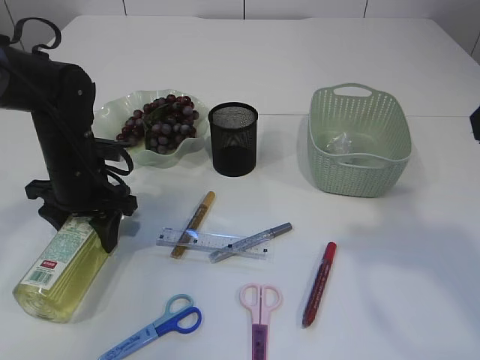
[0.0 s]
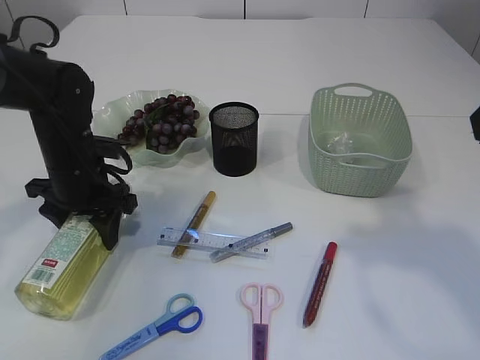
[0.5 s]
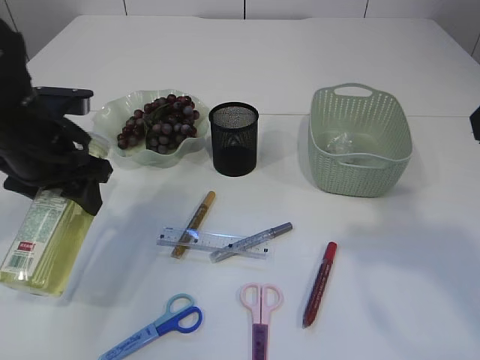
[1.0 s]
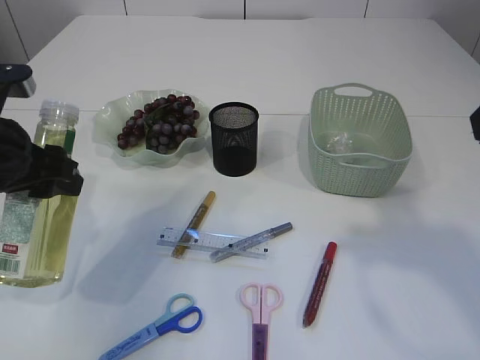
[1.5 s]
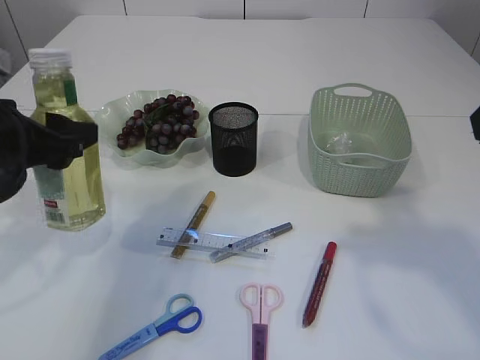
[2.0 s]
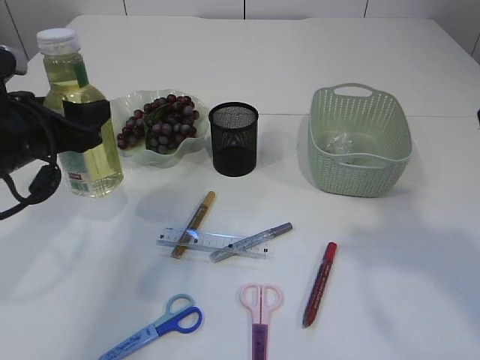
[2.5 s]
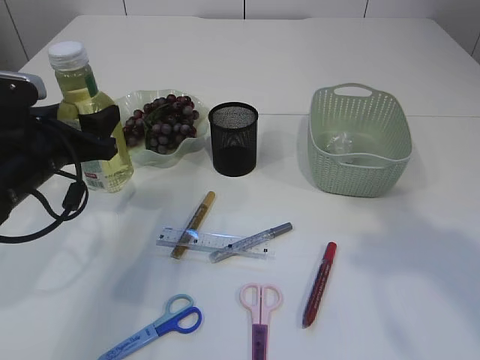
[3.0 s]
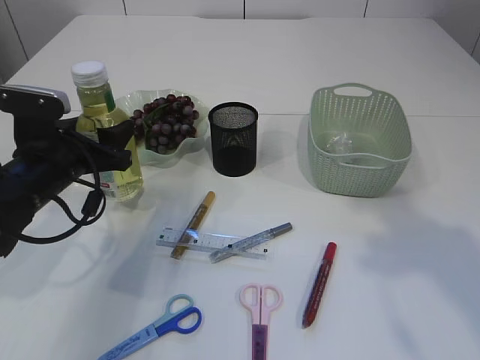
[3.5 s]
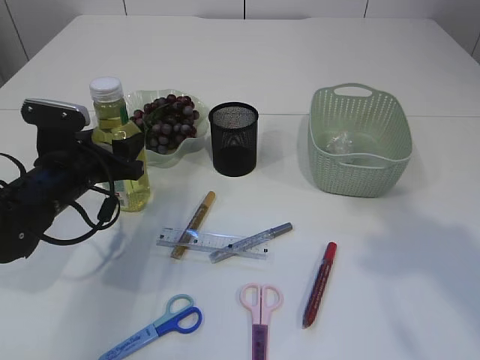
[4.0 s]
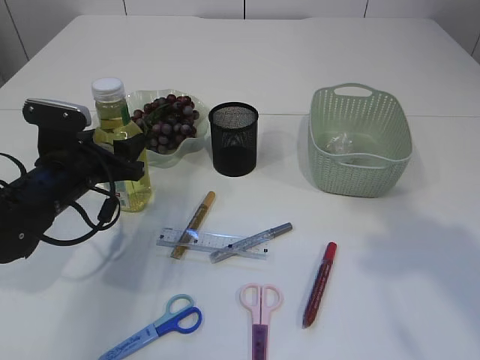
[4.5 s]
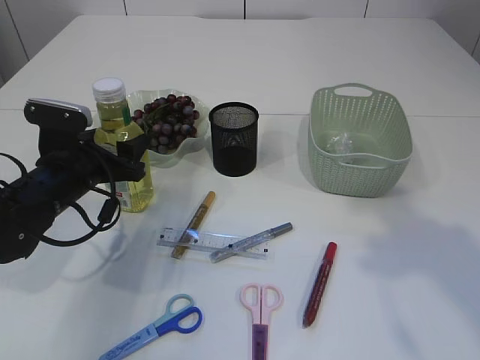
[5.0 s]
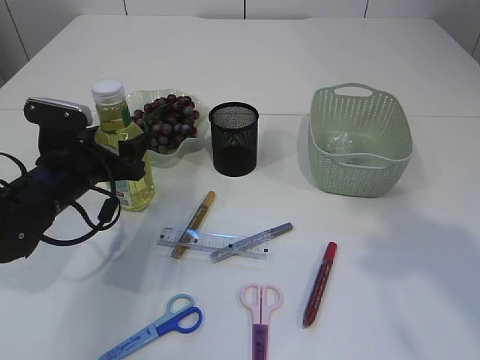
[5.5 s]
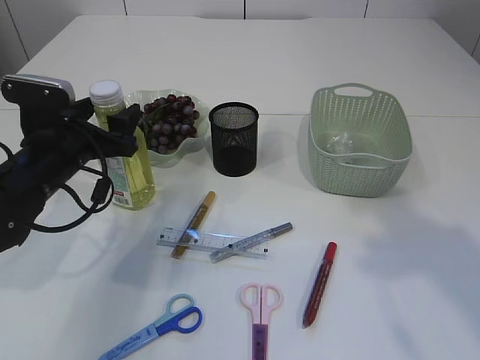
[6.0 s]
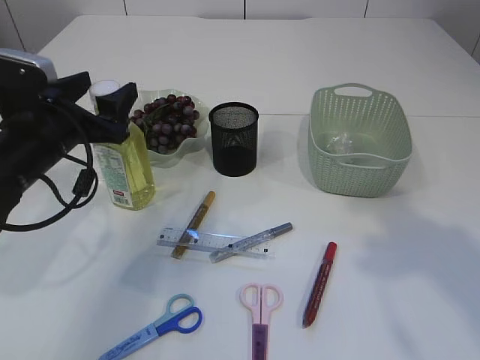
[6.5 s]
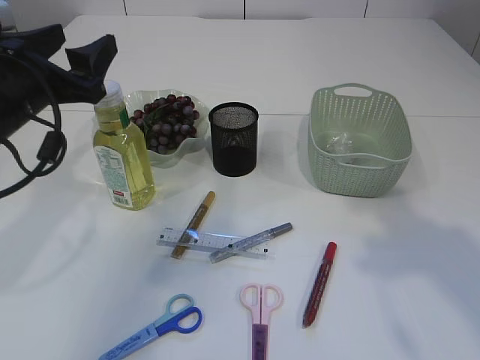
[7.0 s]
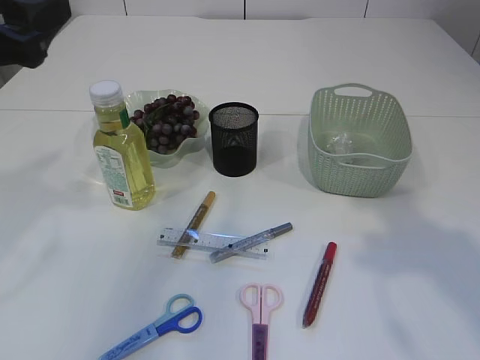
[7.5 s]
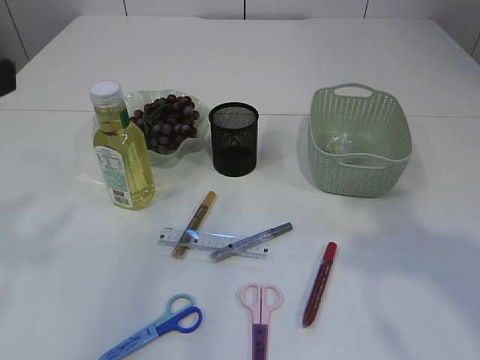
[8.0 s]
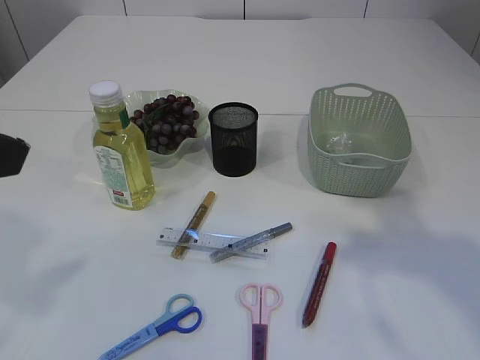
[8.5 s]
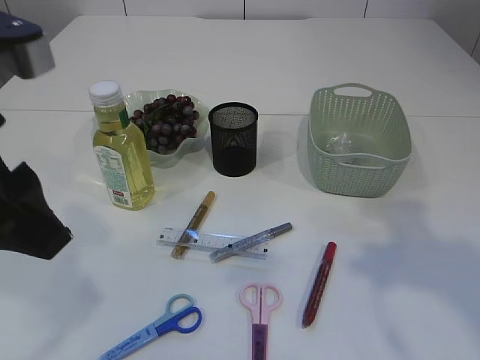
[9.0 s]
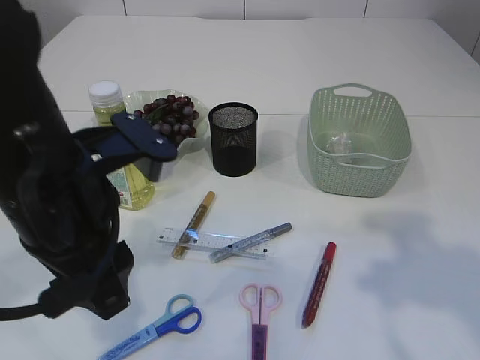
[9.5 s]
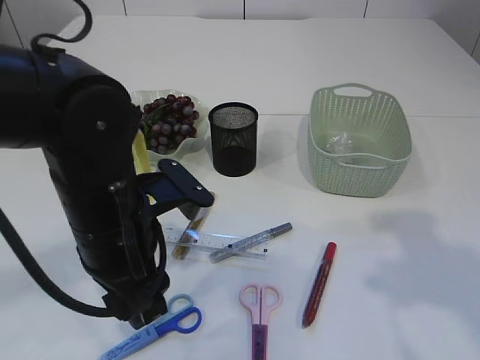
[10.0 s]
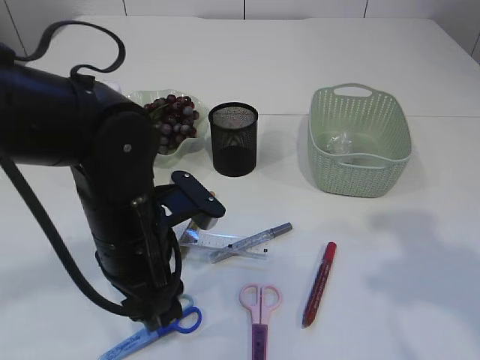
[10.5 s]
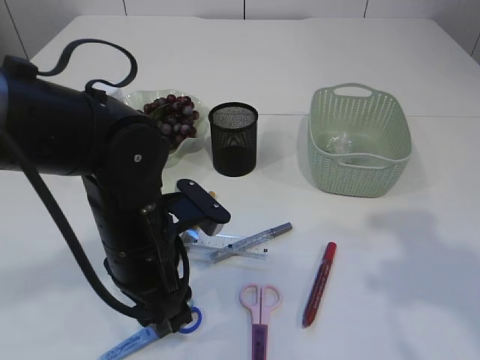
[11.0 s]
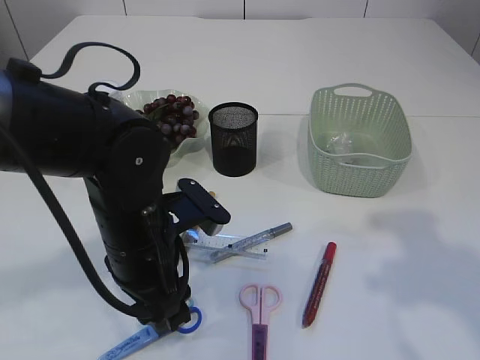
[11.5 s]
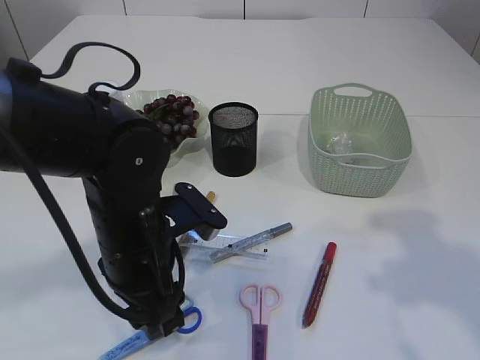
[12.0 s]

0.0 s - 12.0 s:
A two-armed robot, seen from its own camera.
Step, 1.5 s - 6.5 s: Place the bottle.
0.0 s - 2.0 s: The left gripper shifts roughly 15 cm backward and upward.
2.0 s - 4.0 s: The left gripper is displaced downward and forward by approximately 15 cm.
4.0 s - 6.0 s: The grippers move only a little.
6.0 s - 8.0 s: The left gripper travels upward and backward by about 25 cm.
8.0 s - 10.0 s: The left gripper shifts about 20 cm to the right and downward; the right gripper goes about 5 cm downward.
10.0 s - 12.0 s: The grippers make only small movements.

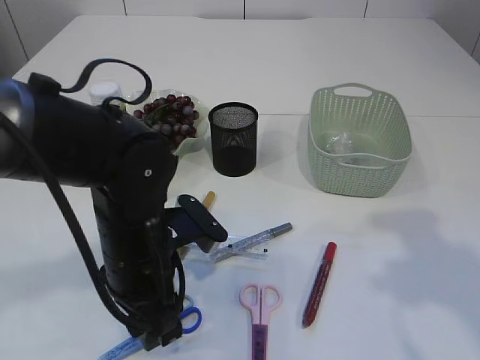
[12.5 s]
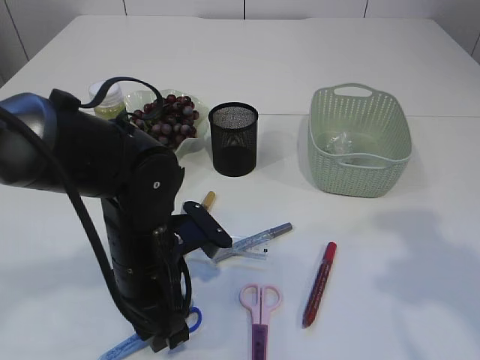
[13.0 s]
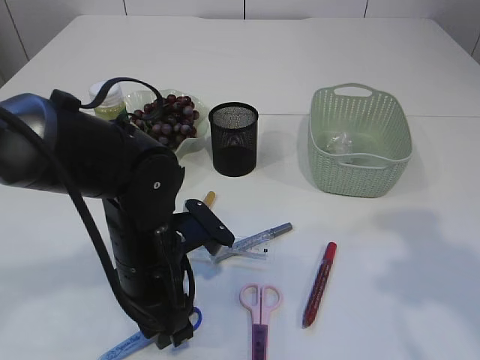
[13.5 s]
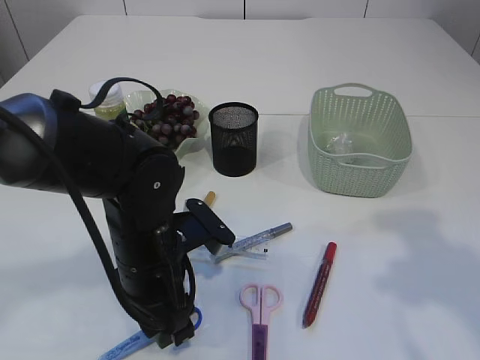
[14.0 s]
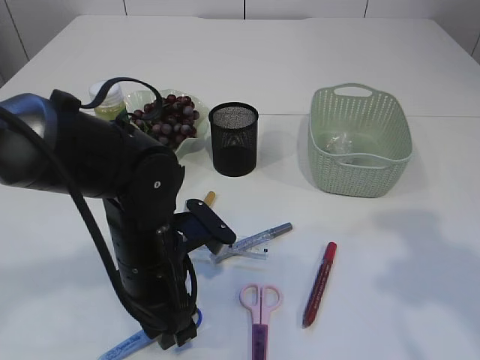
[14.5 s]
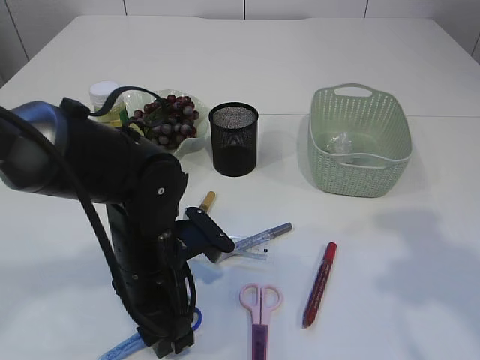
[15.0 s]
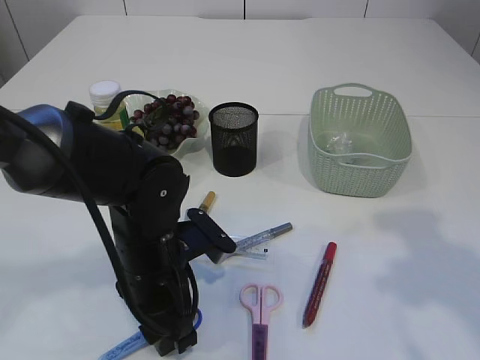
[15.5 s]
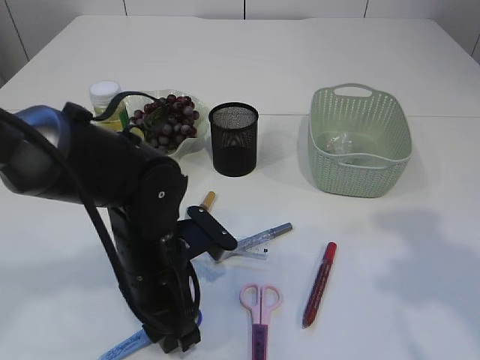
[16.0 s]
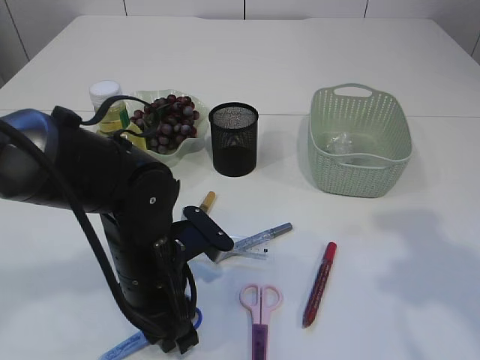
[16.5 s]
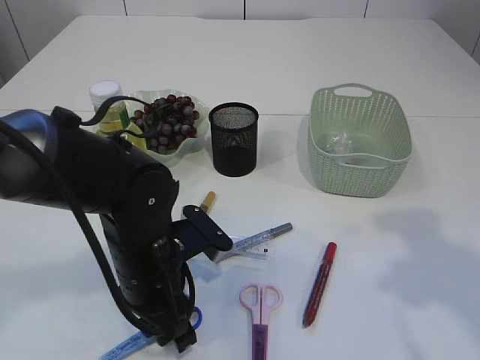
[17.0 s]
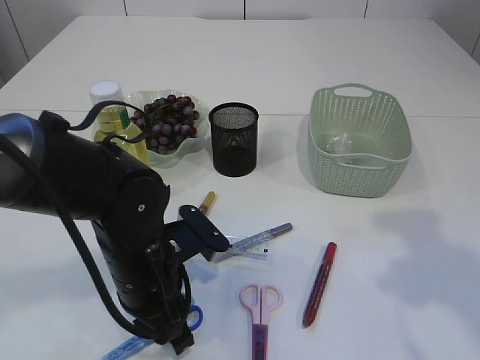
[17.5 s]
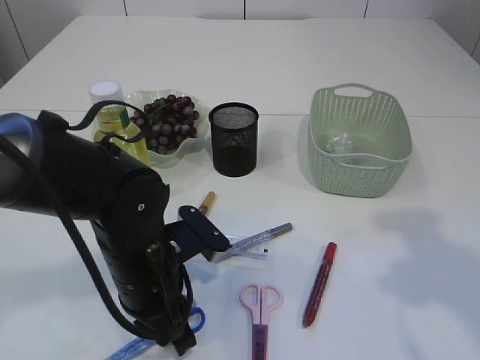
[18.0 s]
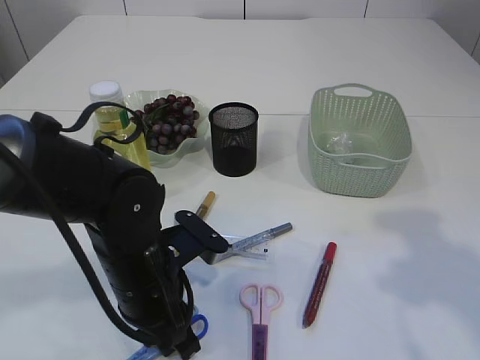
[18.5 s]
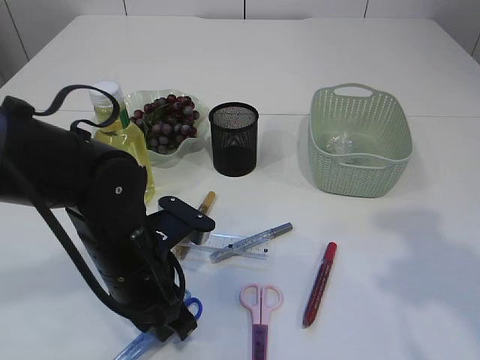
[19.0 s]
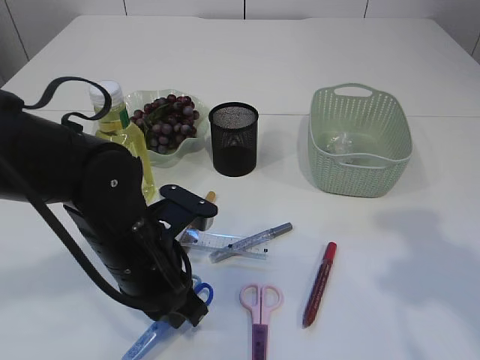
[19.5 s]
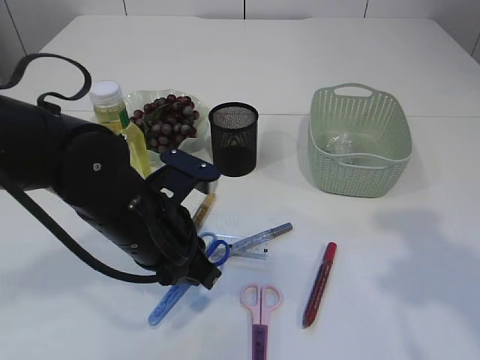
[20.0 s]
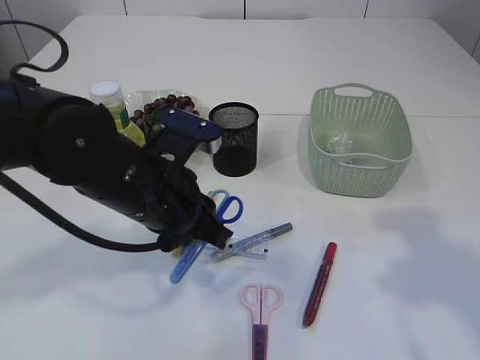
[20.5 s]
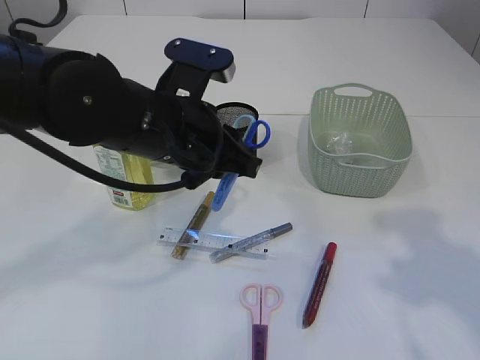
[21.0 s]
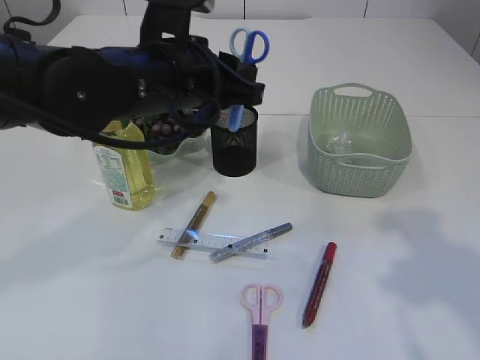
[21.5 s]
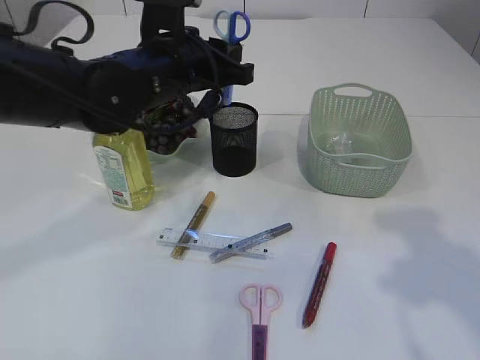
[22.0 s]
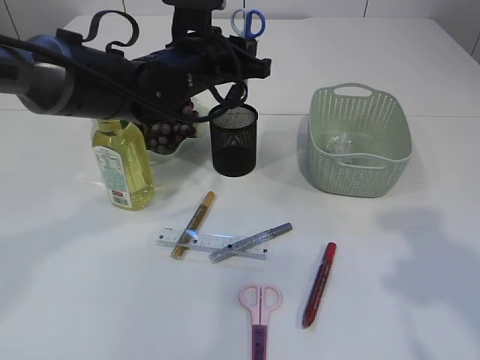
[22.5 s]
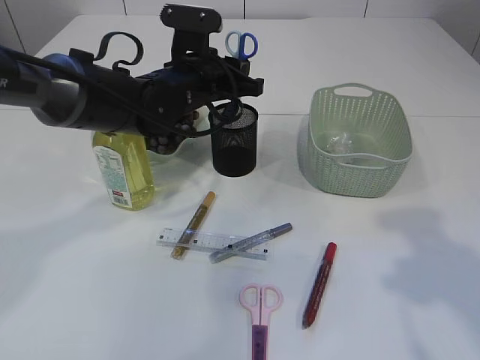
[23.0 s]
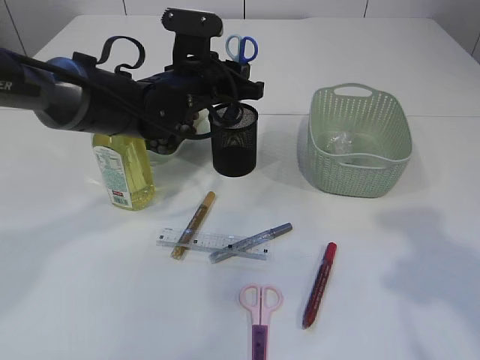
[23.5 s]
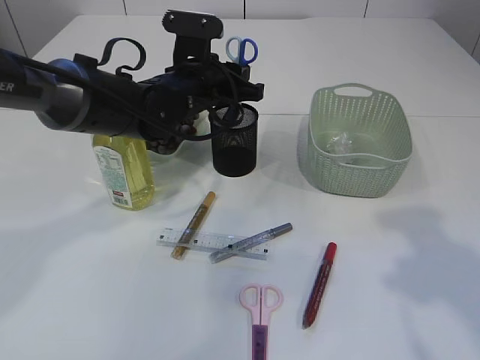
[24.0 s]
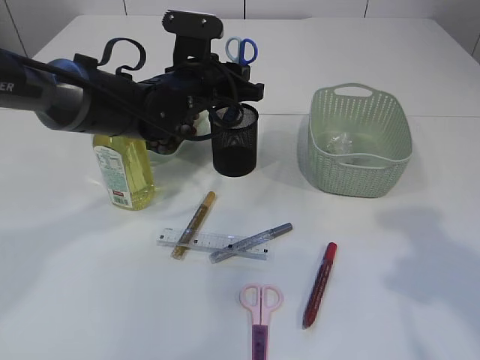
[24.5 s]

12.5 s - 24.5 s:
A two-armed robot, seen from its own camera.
Step, 12.5 s - 19.5 s: pick up the blue scissors.
12.5 s - 16.5 s: The grippers stay close to where they were, moving slightly.
16.5 s - 18.5 s: The left gripper closes.
18.5 s - 20.5 s: The left gripper travels upward by roughly 10 cm.
20.5 s - 22.5 s: The left gripper goes approximately 15 cm forward.
22.5 s - 24.5 s: The grippers stay close to where they were, moving slightly.

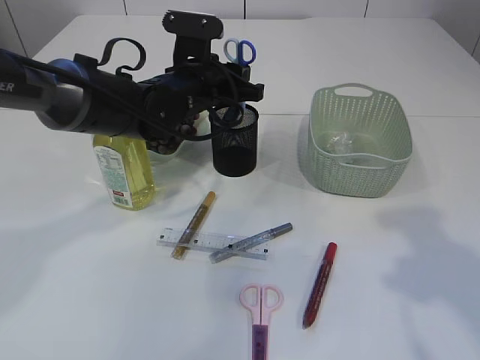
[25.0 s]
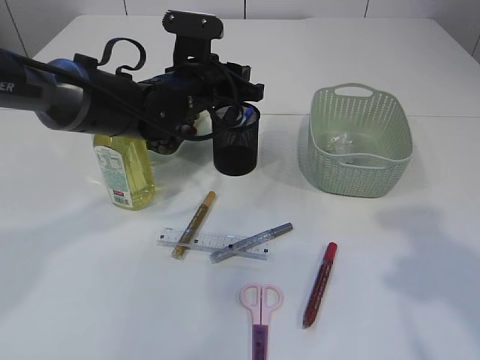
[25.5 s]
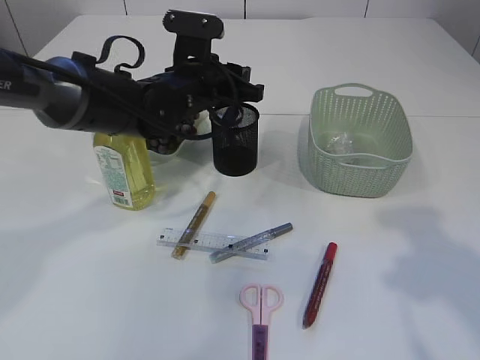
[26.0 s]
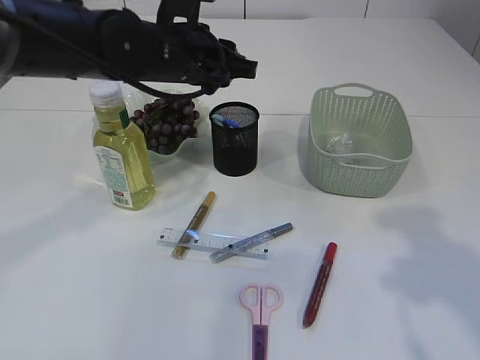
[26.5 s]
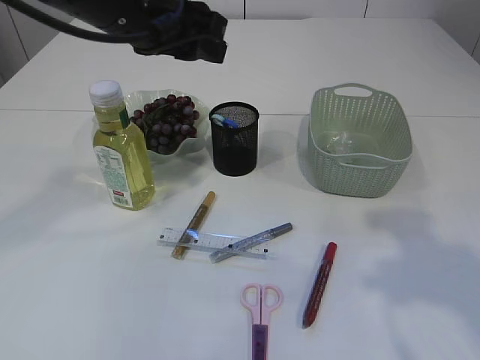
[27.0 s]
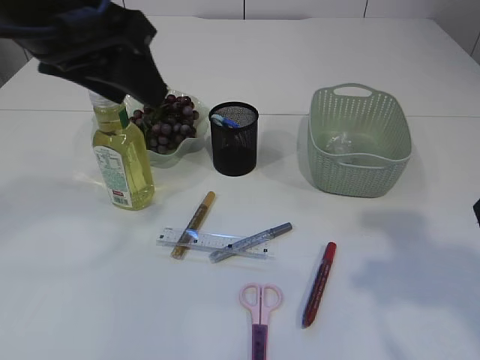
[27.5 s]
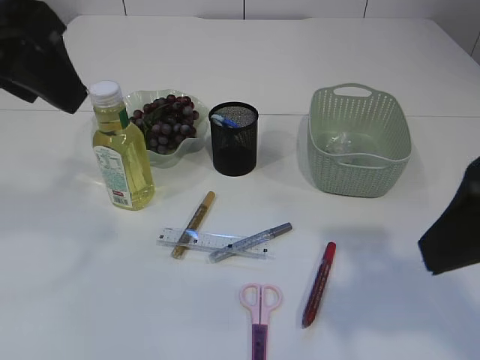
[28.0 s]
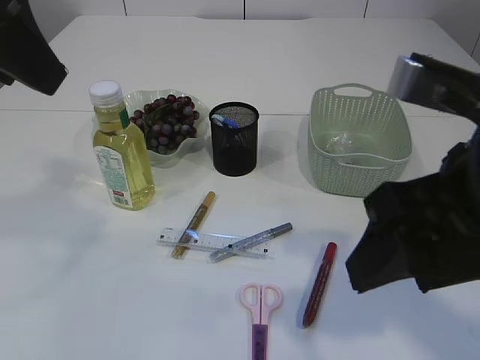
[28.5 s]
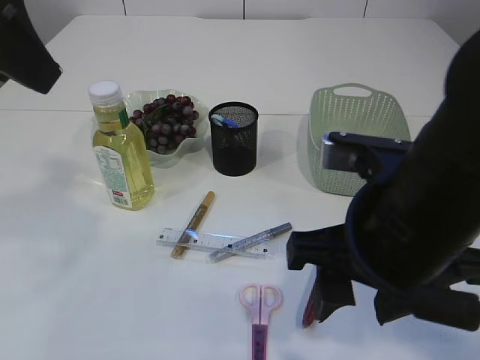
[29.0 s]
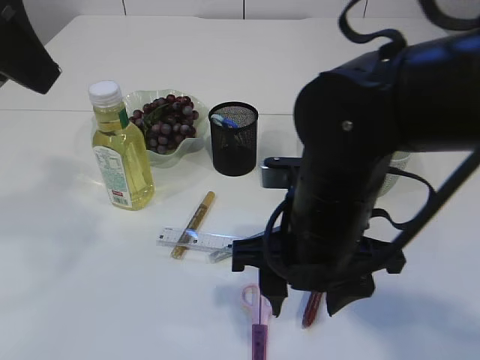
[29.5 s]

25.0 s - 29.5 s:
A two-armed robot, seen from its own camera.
25.0 s - 27.0 s: The left gripper heads upward and backward, covering approximately 15 cm.
27.0 s - 29.5 s: The right gripper heads to the left and downward, covering about 20 cm, while the left gripper goes some 15 cm backward, to the left and upward.
